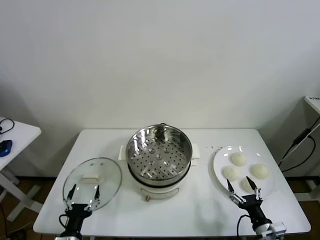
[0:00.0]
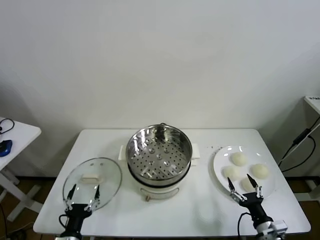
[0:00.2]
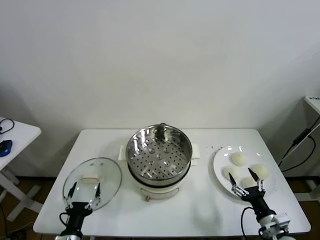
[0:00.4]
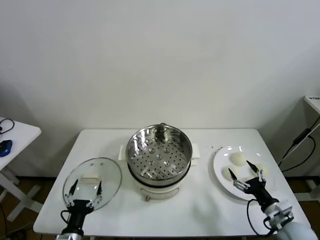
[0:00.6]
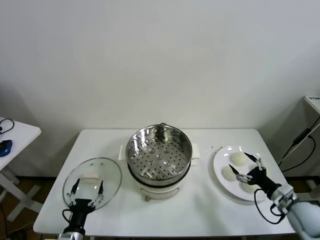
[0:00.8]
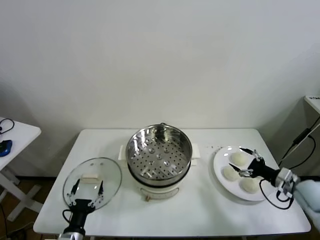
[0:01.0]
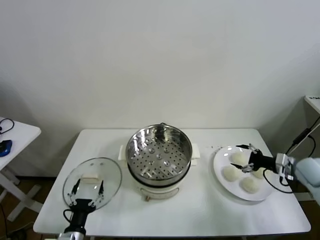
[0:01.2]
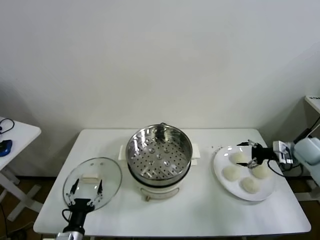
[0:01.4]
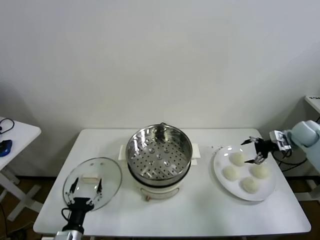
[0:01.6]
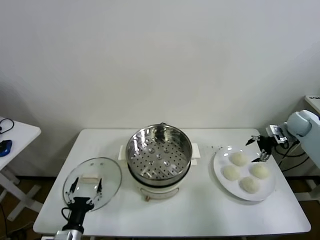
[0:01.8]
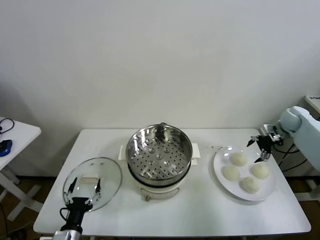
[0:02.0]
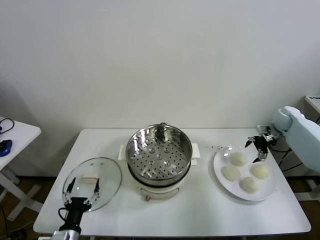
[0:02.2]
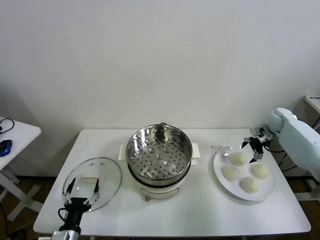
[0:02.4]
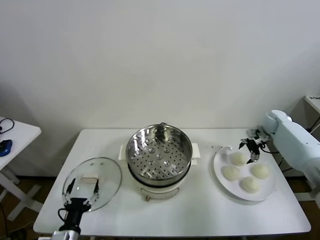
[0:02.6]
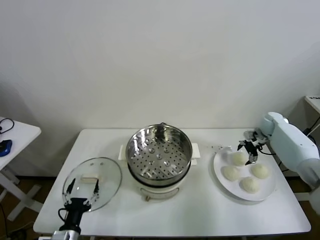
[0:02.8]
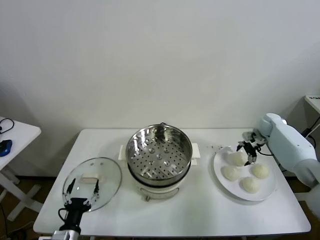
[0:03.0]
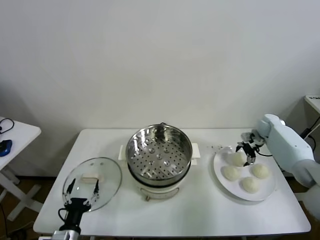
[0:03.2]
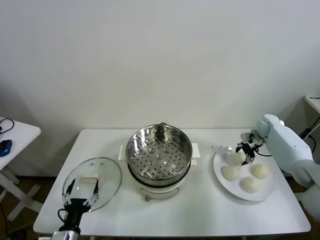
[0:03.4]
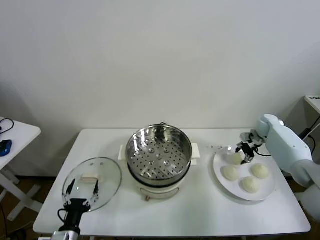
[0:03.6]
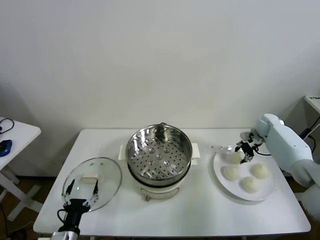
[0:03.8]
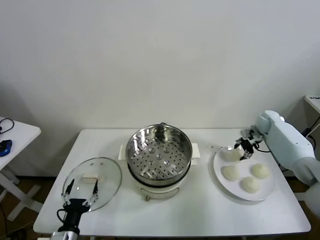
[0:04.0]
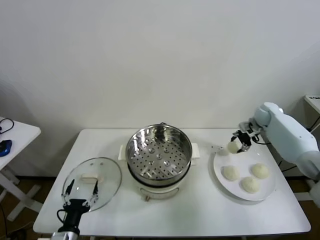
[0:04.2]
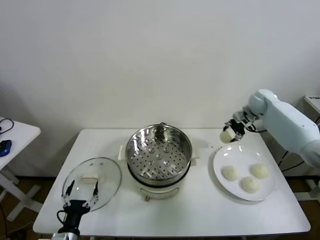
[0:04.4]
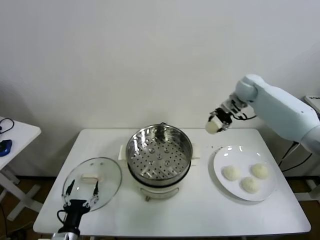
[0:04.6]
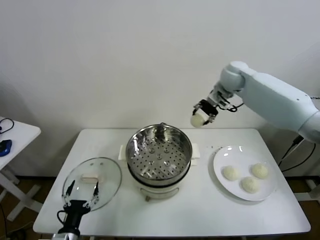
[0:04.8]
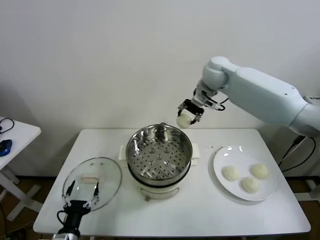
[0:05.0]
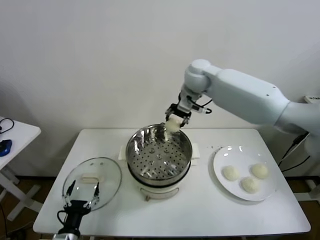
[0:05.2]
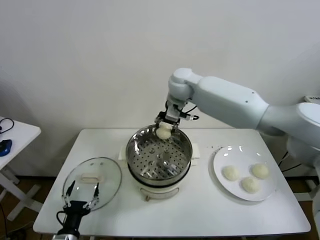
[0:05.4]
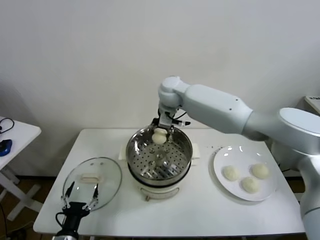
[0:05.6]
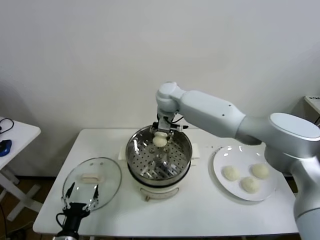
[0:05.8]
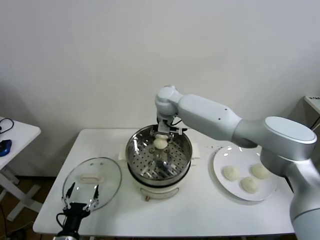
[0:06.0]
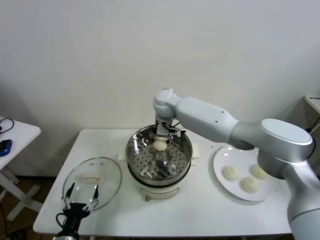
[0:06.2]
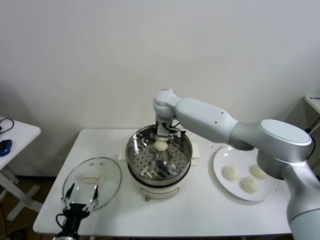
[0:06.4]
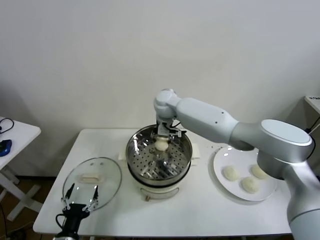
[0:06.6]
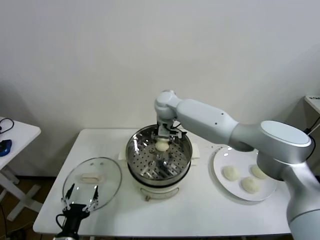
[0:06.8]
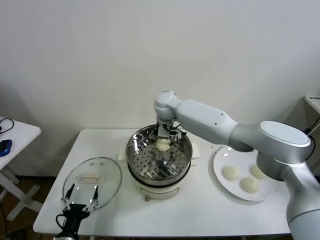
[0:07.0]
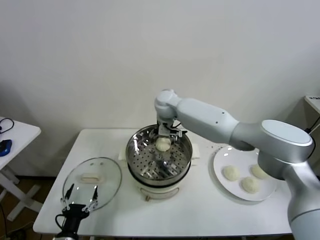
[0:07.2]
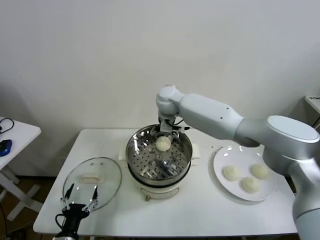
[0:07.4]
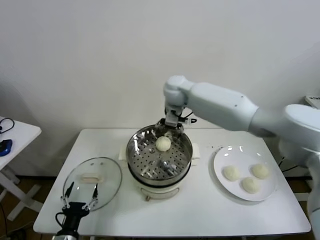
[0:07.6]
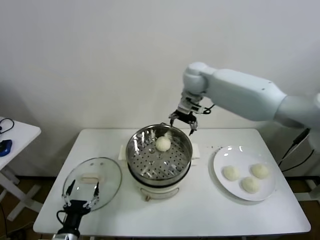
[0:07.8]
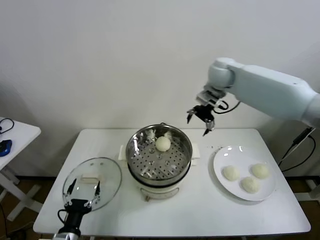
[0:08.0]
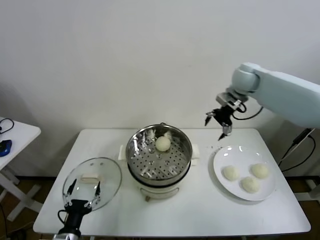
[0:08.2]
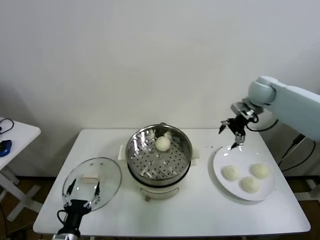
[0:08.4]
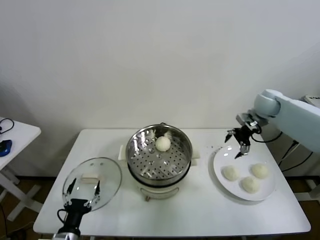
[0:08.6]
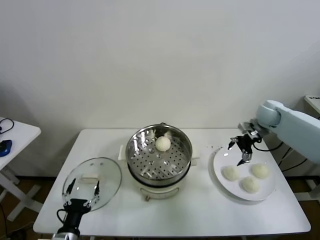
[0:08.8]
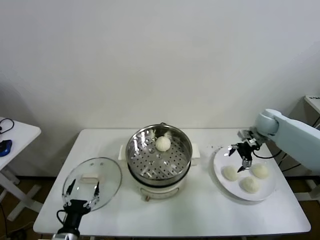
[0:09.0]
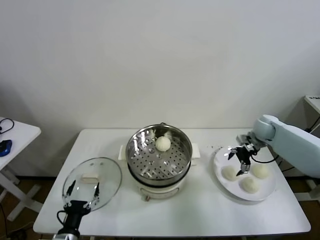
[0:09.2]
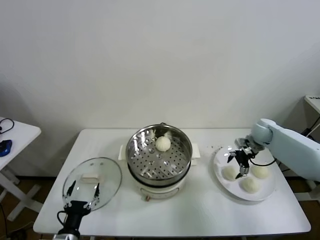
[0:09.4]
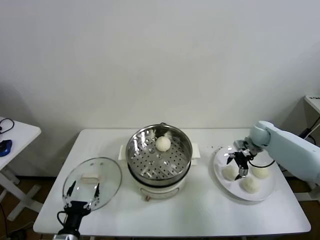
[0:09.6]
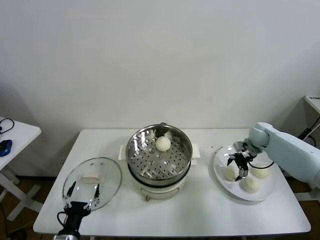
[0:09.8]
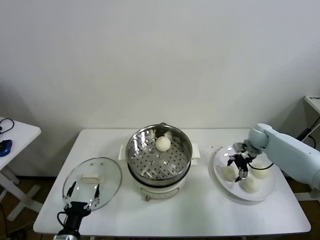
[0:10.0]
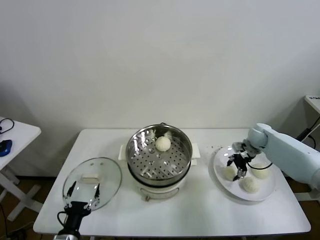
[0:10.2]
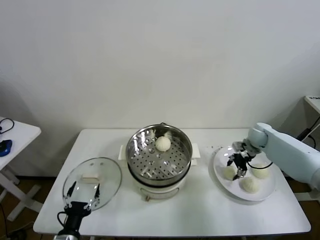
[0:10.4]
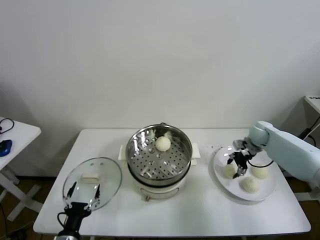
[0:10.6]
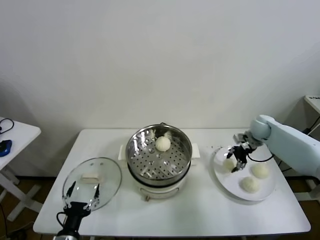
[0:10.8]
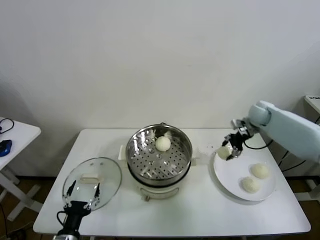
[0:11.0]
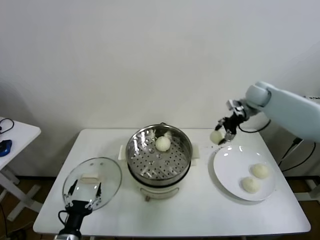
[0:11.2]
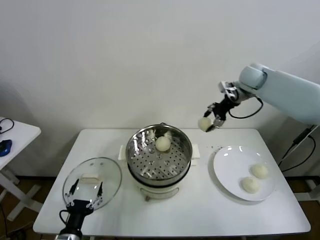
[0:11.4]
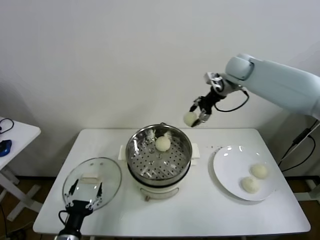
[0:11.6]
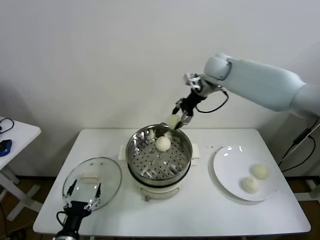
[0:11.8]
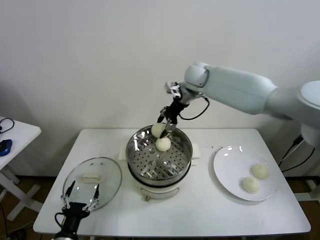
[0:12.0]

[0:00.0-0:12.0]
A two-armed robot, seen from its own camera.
Task of the whole recording: take steamed baozi put them in steamer.
Step, 0:00.0 to 0:03.4: Grasp the baozi in the plate with right gripper.
Step, 0:03.6 to 0:07.4: Place the baozi on the steamer with right gripper.
Step, 0:07.6 to 0:10.2: Grasp the baozi in the plate with right gripper.
0:01.6 to 0:03.0: The right gripper is displaced forward, downward and to the left by about 10 cm.
0:03.0 to 0:04.4: The right gripper goes some 20 cm upward and to the left, and closes up.
0:04.4 to 0:06.0: The right gripper shifts approximately 35 cm to the left.
0:06.0 to 0:07.6: The right gripper heads upward and to the right, covering some 10 cm, and opens its fingers.
0:07.6 to 0:09.0: The right gripper moves to the right and downward, about 35 cm.
0:09.0 to 0:10.4: The right gripper is displaced downward by approximately 5 cm, and closes its fingers.
0:10.4 to 0:12.0: The right gripper travels to the left and upward by roughly 35 cm.

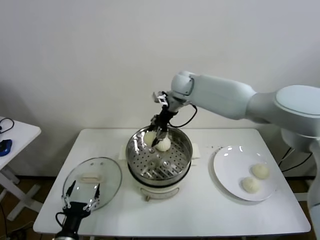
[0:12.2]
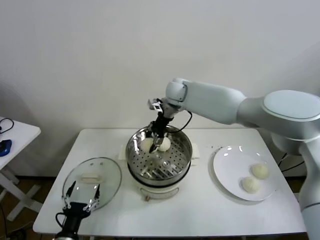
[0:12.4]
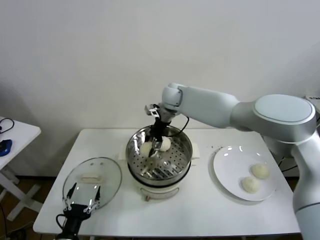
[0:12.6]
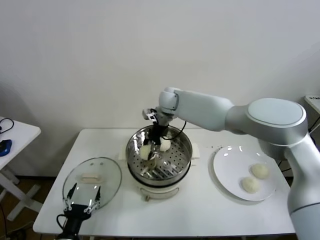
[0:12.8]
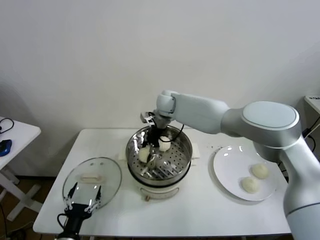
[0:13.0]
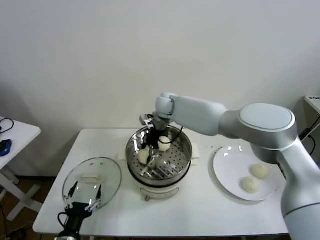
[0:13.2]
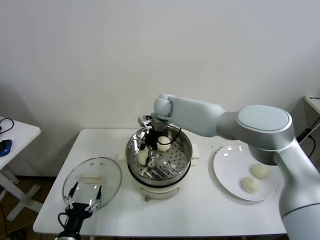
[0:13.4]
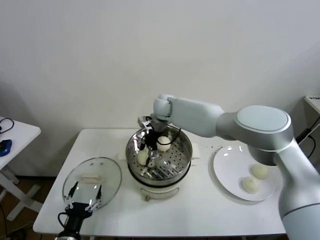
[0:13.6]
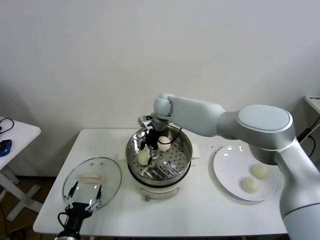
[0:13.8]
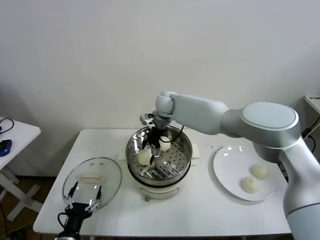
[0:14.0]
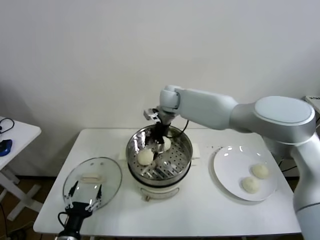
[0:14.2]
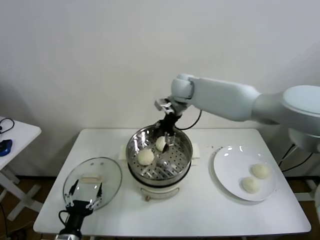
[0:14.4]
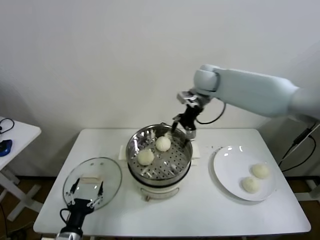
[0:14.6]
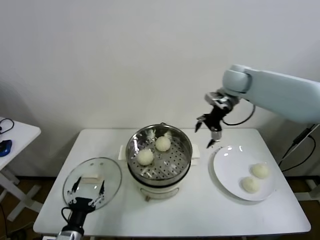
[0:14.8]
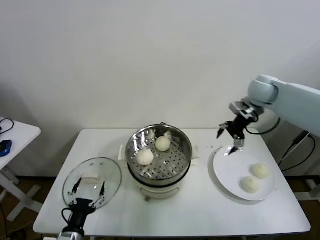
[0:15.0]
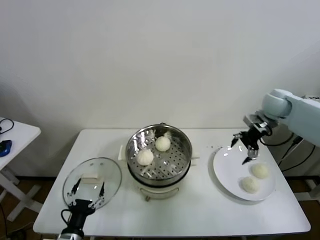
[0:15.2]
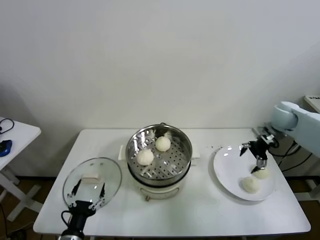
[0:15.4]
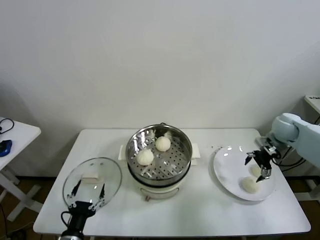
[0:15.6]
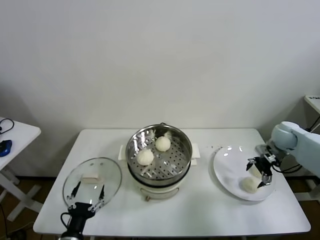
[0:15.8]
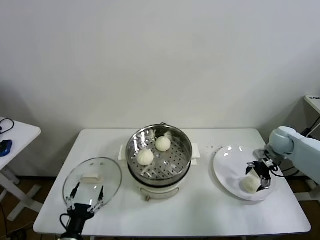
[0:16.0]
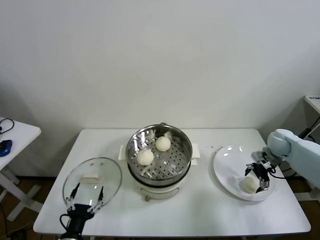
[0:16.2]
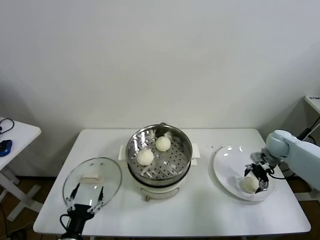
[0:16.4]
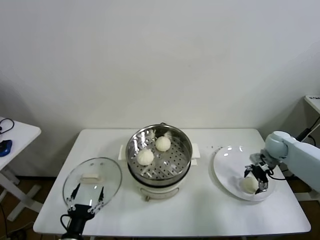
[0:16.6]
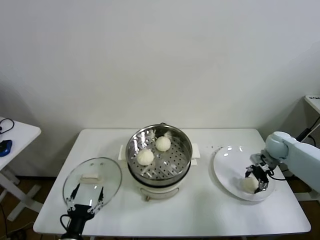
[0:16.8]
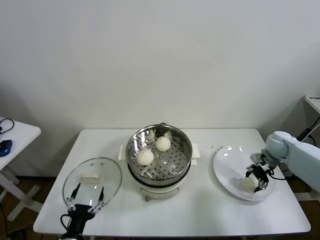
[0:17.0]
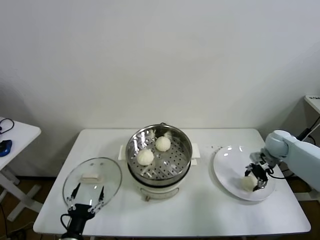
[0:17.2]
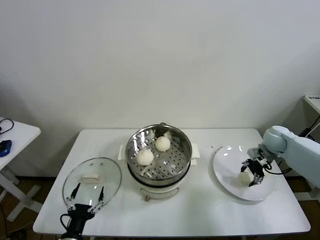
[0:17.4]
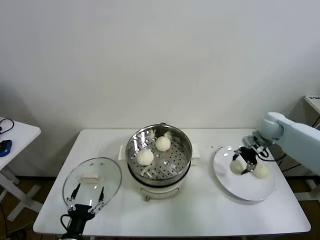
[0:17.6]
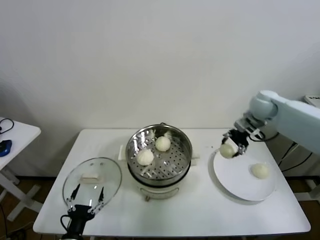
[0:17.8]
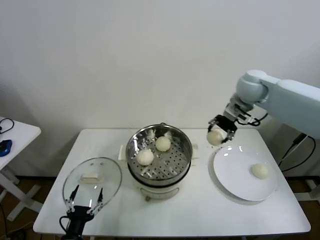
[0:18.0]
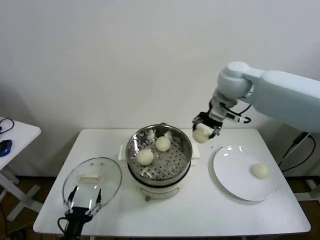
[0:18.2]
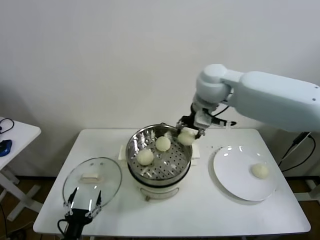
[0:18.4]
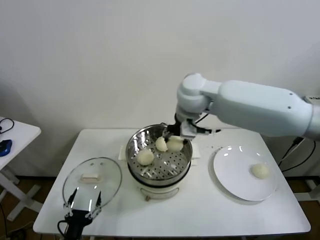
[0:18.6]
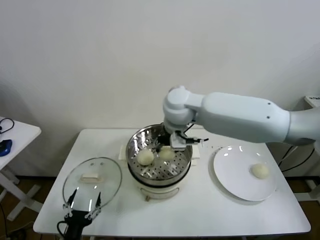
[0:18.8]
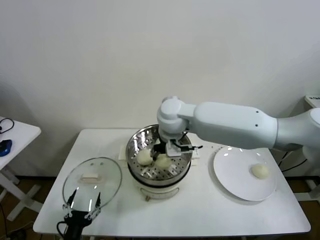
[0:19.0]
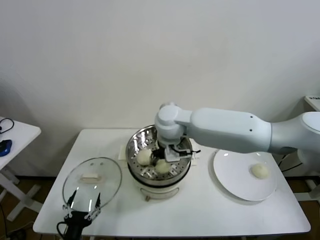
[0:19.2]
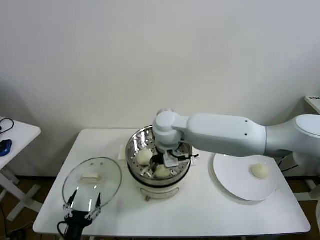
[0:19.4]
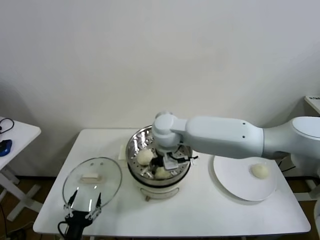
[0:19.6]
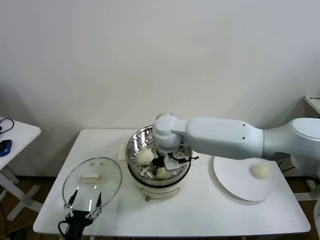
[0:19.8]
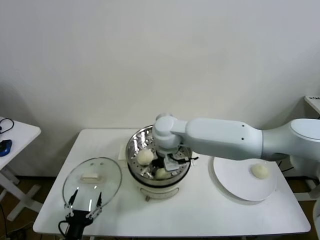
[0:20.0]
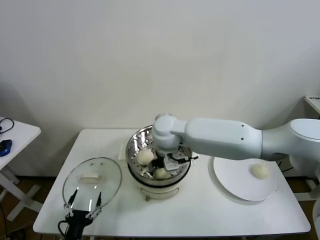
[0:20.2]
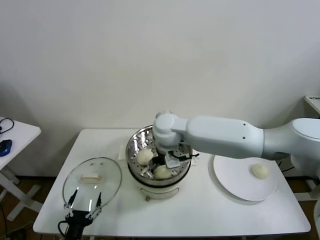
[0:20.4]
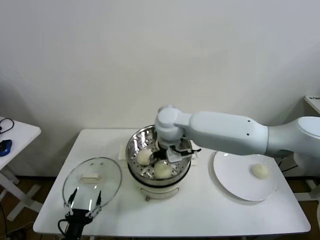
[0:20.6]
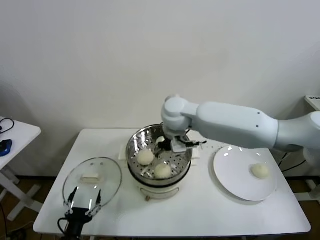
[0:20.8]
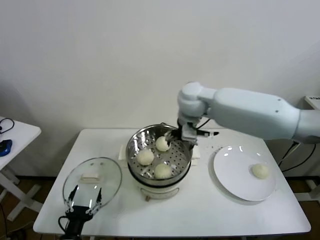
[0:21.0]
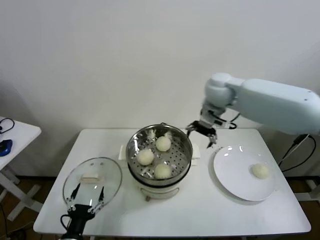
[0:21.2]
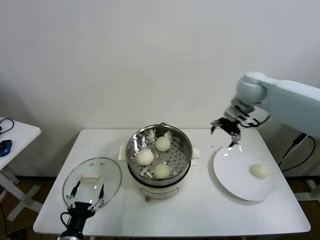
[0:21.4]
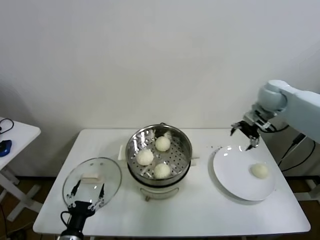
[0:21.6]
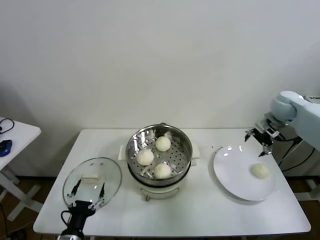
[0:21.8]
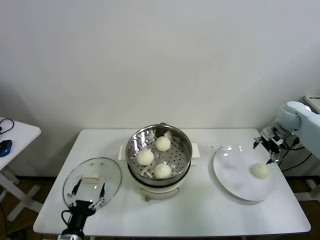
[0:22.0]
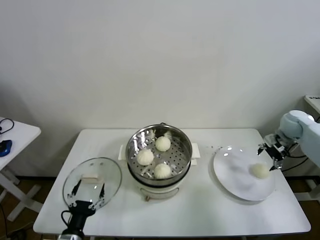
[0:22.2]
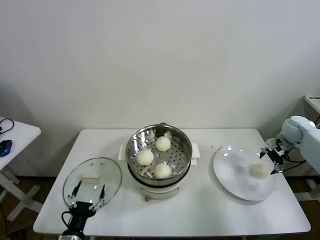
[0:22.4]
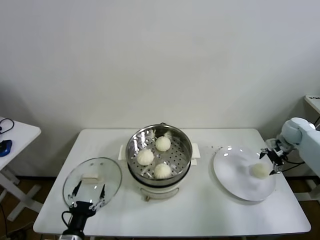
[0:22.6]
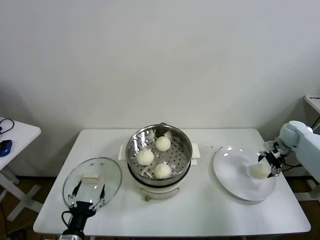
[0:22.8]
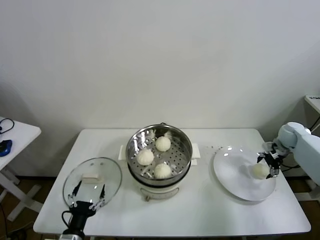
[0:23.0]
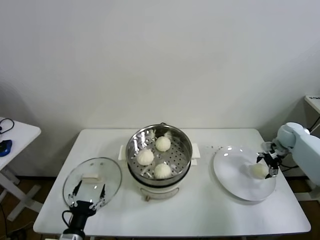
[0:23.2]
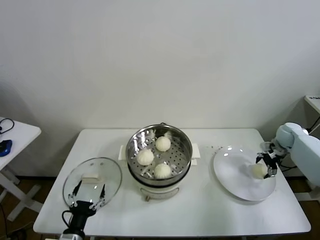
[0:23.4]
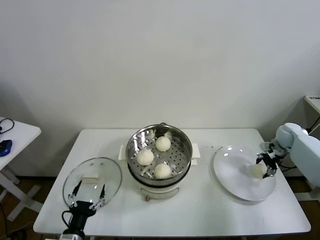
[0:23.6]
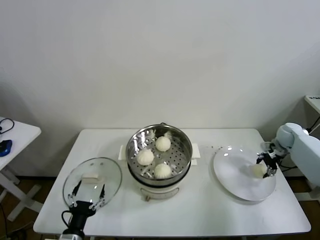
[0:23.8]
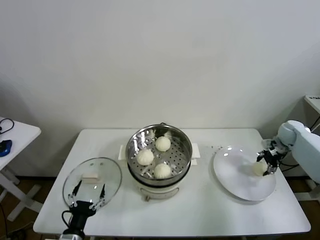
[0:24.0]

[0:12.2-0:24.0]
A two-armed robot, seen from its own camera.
Task of the whole recording: take steamed baozi put them in steamer.
Step, 0:14.2 to 0:17.0: Grasp the baozi in the plate with right gripper.
Step, 0:17.2 to 0:20.4: Place the baozi on the steamer with right gripper.
Step, 0:20.6 to 0:23.6: Grasp the baozi in the plate with right gripper.
0:12.2 to 0:13.6: The right gripper moves downward and to the left, about 10 cm, and opens.
0:13.6 to 0:15.2: The right gripper moves to the right, roughly 40 cm, and opens.
0:15.2 to 0:16.6: The right gripper shifts some 15 cm downward.
0:16.6 to 0:18.2: The right gripper shifts some 40 cm upward and to the left, and closes its fingers.
0:18.2 to 0:19.6: The right gripper shifts some 20 cm to the left and downward.
0:19.6 to 0:21.0: The right gripper travels to the right, upward and forward by some 15 cm, and opens its fingers.
0:21.0 to 0:22.6: The right gripper shifts approximately 40 cm to the right and downward.
0:22.6 to 0:24.0: The right gripper closes its fingers.
